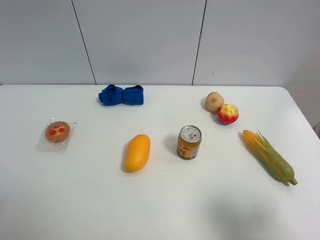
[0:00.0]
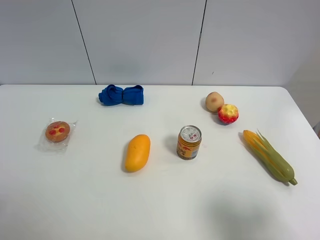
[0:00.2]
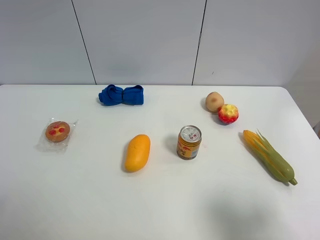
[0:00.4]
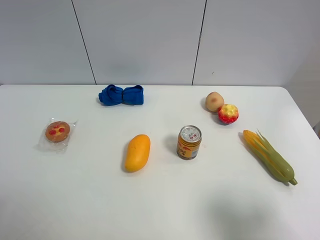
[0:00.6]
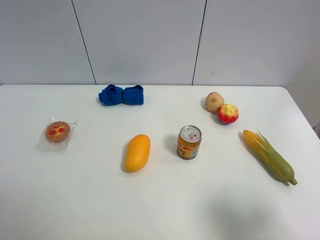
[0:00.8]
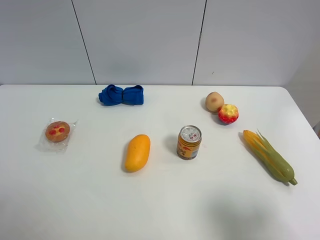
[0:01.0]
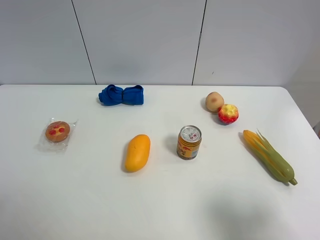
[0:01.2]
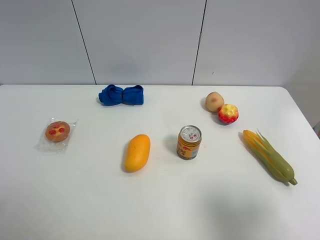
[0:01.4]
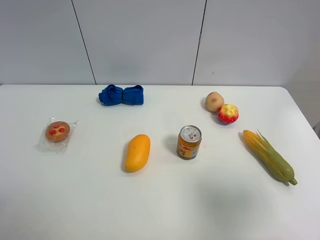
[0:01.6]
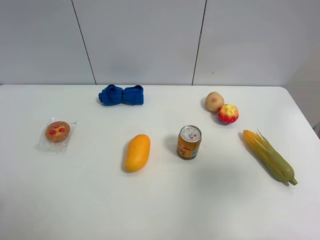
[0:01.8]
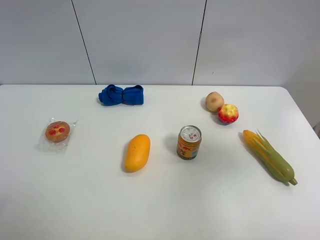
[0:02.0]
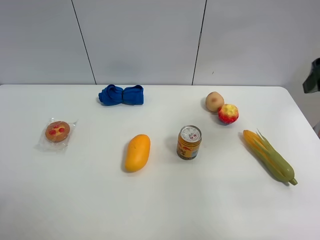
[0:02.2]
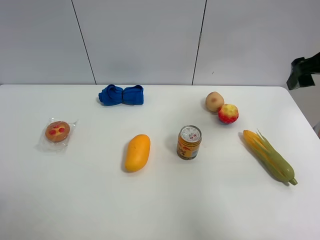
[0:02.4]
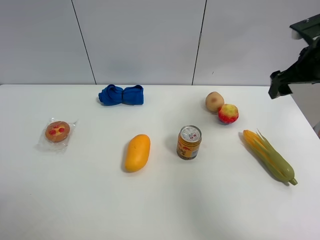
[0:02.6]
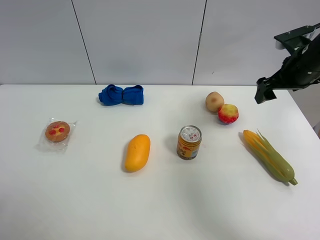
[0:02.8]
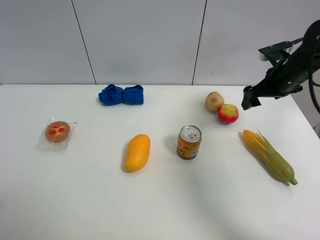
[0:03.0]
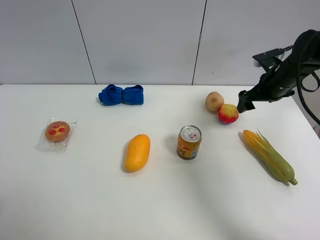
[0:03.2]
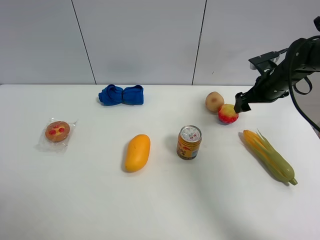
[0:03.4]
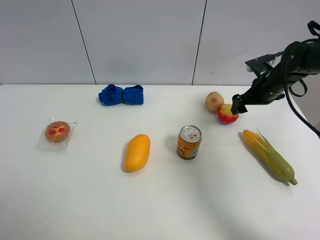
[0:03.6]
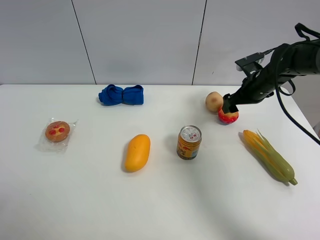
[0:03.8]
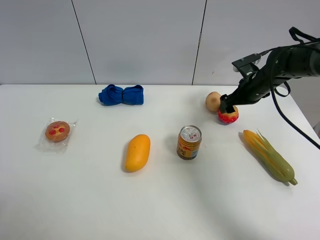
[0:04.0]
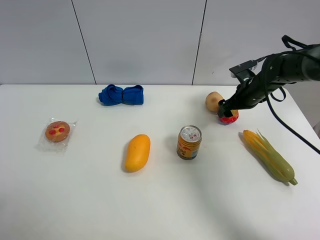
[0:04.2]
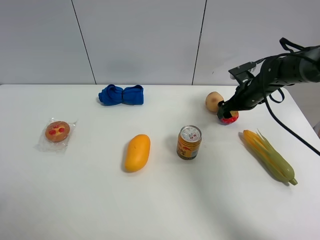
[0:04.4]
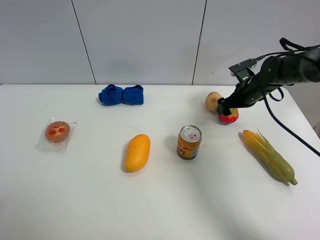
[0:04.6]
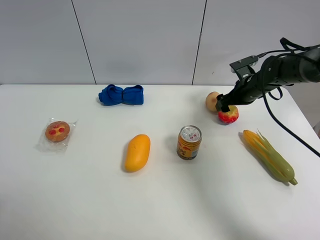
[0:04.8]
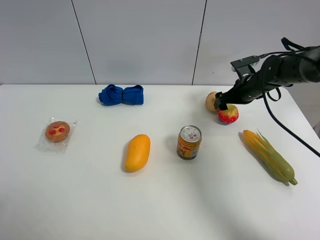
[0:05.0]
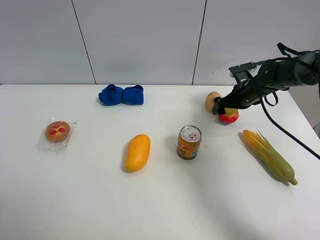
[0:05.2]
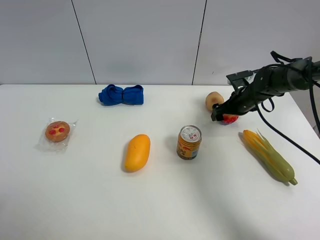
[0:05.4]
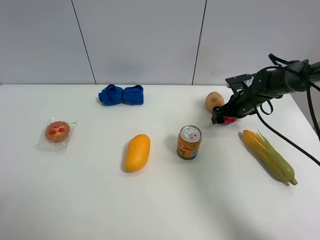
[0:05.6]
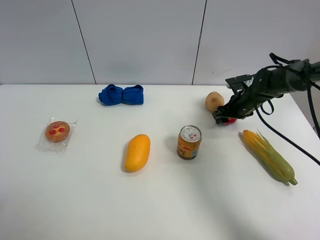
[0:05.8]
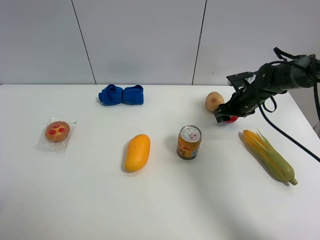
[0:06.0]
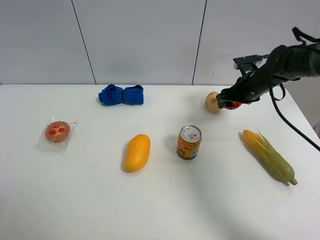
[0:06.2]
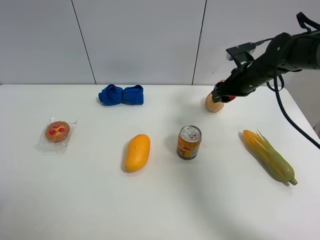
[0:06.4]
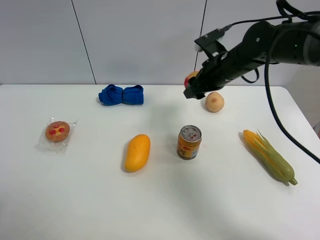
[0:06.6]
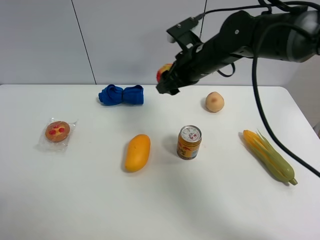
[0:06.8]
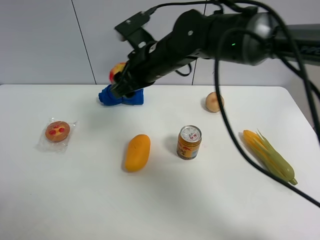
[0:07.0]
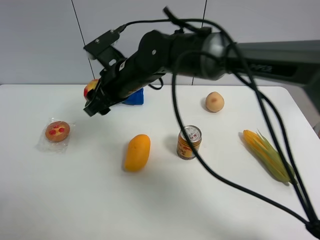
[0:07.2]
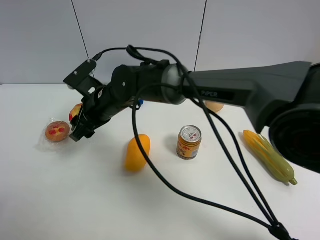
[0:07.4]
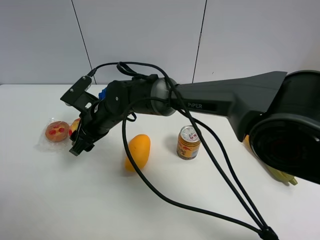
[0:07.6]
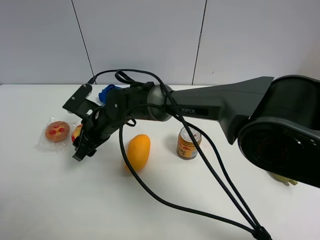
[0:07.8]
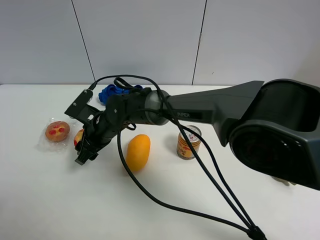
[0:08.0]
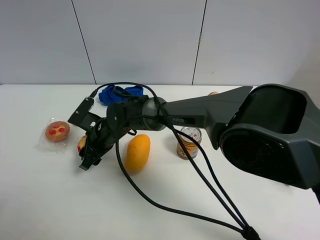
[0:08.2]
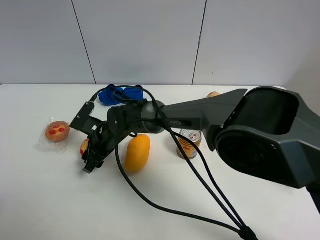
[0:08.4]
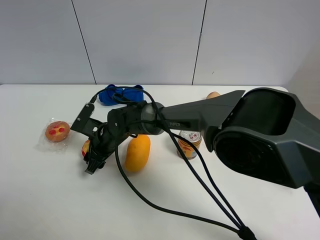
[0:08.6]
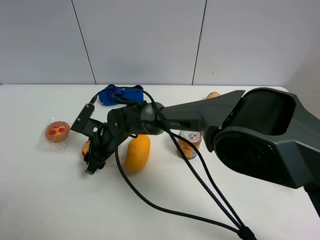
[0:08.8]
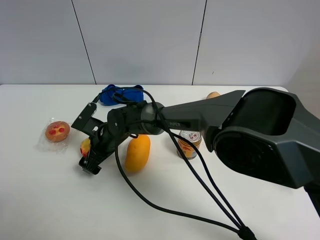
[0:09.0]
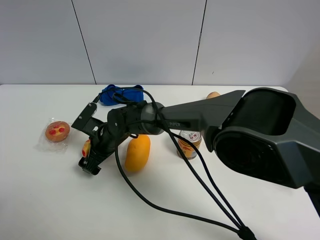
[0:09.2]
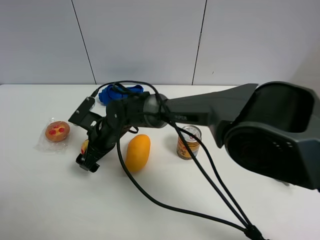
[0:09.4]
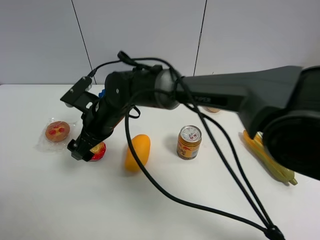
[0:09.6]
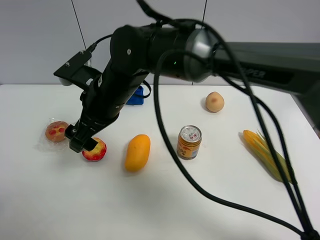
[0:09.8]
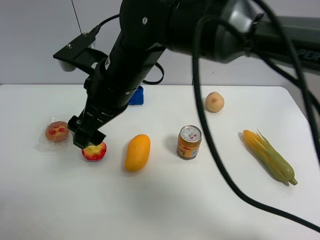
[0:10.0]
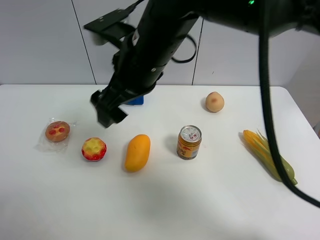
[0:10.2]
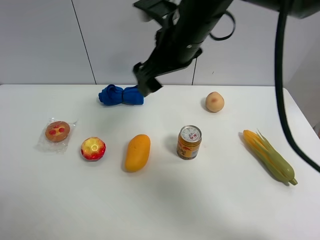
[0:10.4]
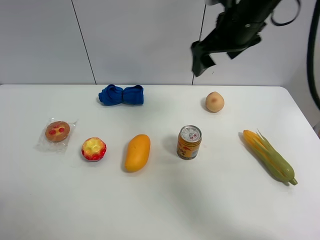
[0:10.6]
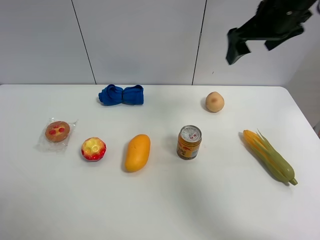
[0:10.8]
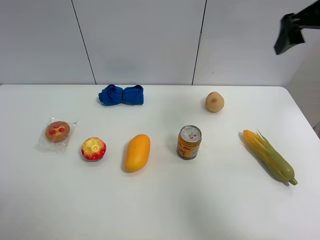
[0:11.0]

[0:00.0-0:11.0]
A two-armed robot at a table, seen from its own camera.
Task of the whole recording: the gripper move the object.
Step, 0:00.0 to 0:05.6: Grasp the colorful ball with the right gripper.
Step, 0:05.8 to 0:09.4: Place the colorful ball on the table with the right gripper.
0:00.0 to 0:01.6: The right gripper shifts about 5 cm upward.
0:01.6 to 0:03.2: The right gripper heads forward and downward, covering roughly 40 cm.
0:03.2 to 0:04.8: The right gripper travels downward by some 5 cm.
0:04.8 to 0:06.2: The right gripper closes.
0:06.2 to 0:07.8: The right gripper heads to the left, covering some 35 cm.
0:07.8 to 0:09.4: The right gripper opens up.
0:09.4 to 0:11.0: The right gripper heads to the right and upward, covering some 50 cm.

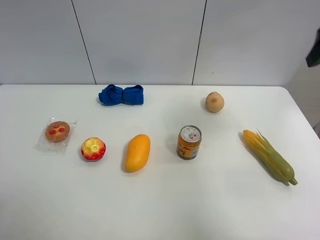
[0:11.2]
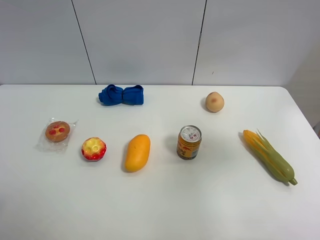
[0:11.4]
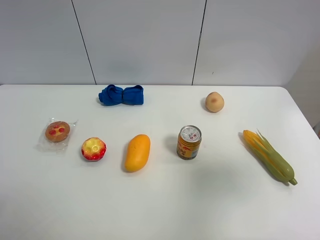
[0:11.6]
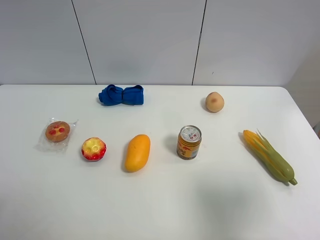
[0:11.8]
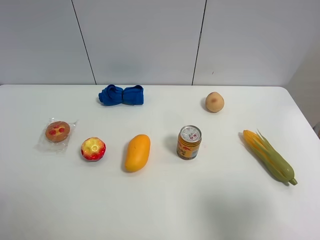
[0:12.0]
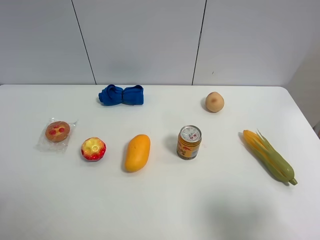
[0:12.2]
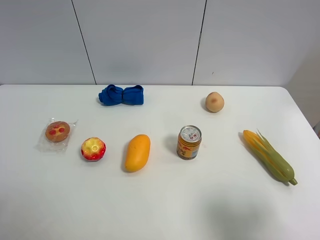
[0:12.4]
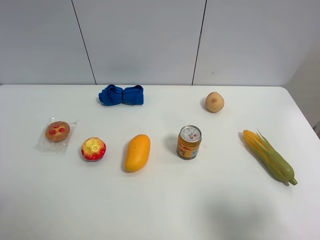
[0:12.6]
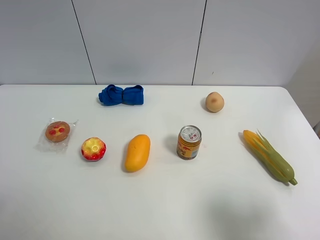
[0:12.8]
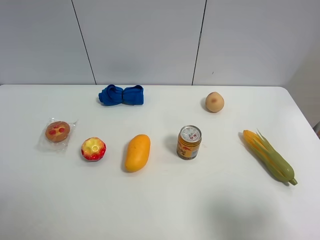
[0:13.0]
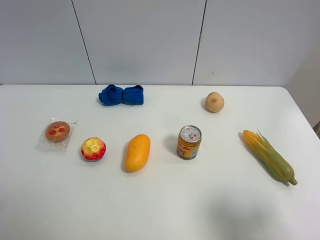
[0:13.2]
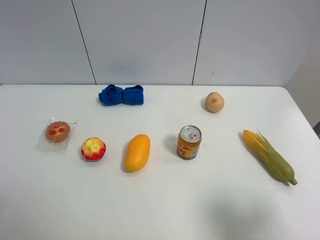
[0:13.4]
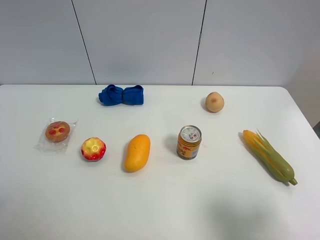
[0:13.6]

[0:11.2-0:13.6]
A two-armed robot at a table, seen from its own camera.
Task of the whole recording: the gripper move the object.
0:11.2 to 0:12.4: The right gripper heads backward and downward, covering roughly 25 cm.
0:12.4 to 0:13.6: The two grippers keep their place.

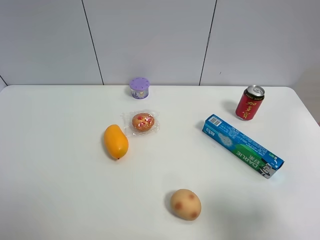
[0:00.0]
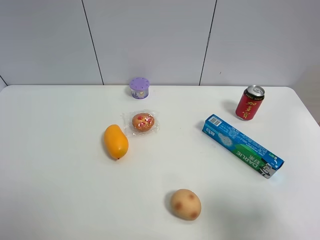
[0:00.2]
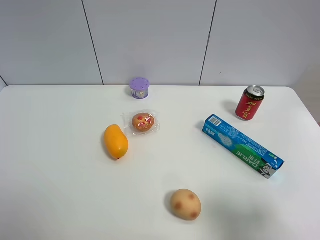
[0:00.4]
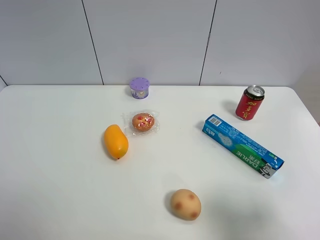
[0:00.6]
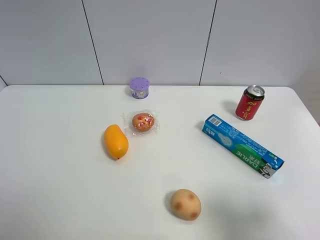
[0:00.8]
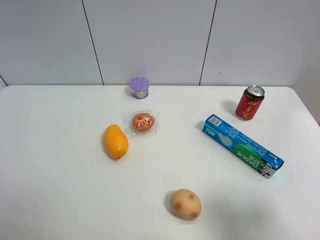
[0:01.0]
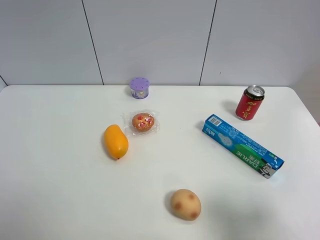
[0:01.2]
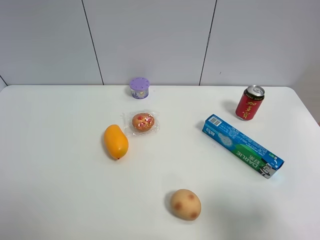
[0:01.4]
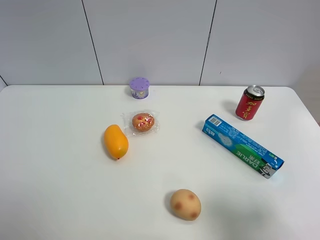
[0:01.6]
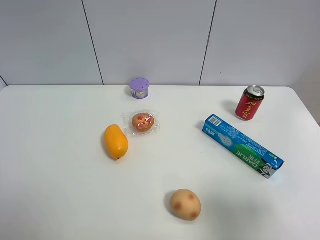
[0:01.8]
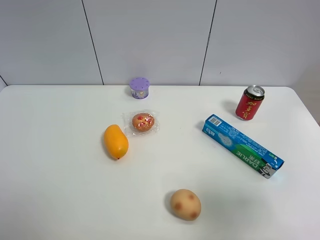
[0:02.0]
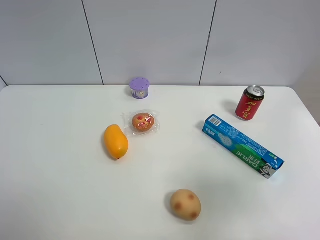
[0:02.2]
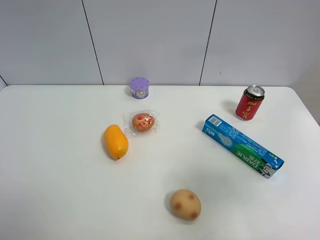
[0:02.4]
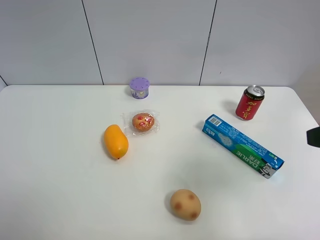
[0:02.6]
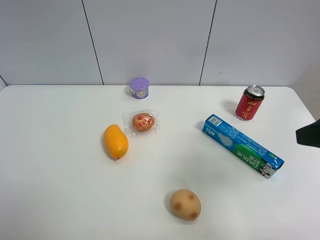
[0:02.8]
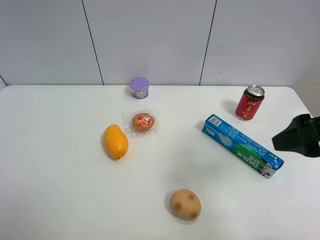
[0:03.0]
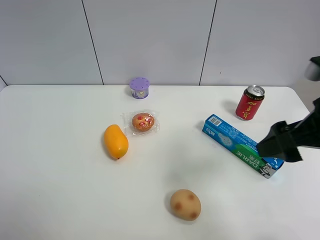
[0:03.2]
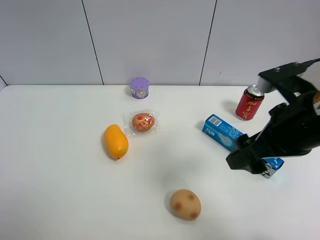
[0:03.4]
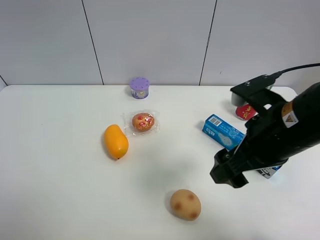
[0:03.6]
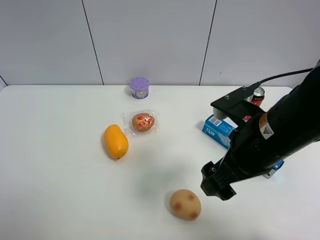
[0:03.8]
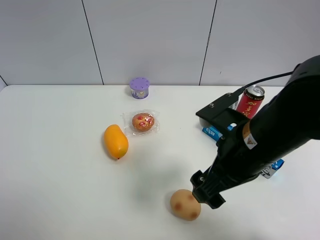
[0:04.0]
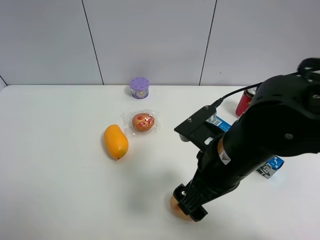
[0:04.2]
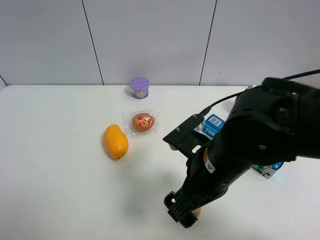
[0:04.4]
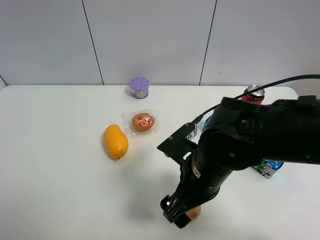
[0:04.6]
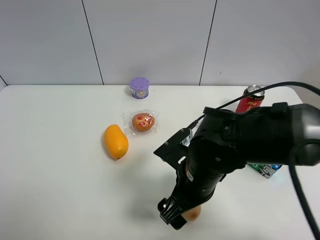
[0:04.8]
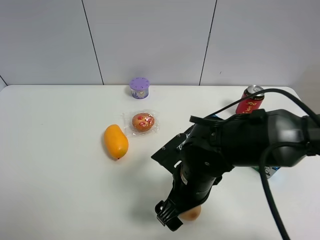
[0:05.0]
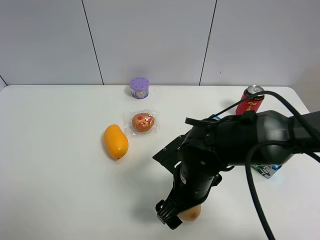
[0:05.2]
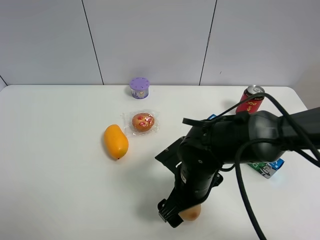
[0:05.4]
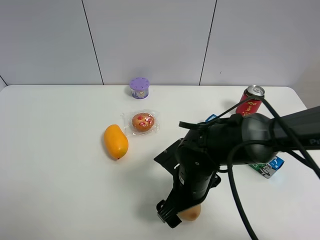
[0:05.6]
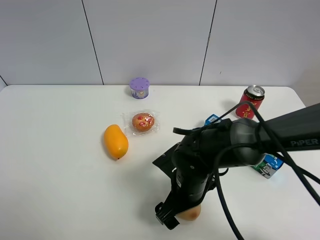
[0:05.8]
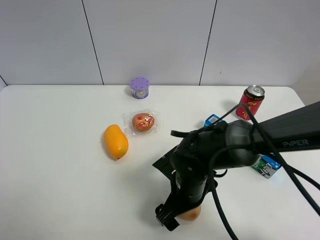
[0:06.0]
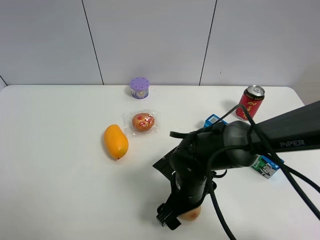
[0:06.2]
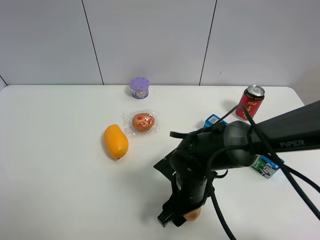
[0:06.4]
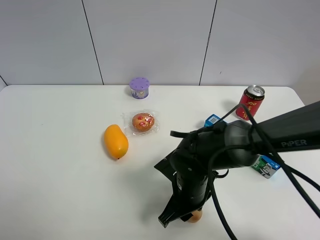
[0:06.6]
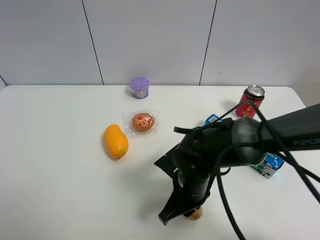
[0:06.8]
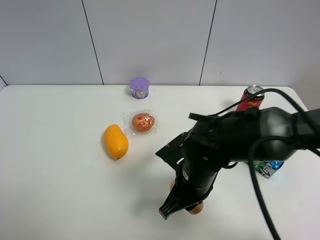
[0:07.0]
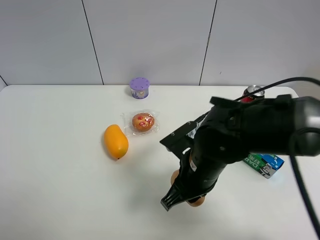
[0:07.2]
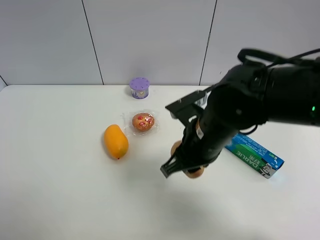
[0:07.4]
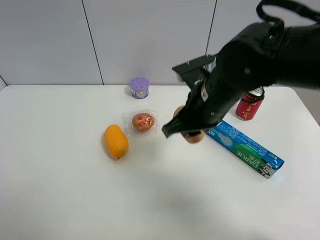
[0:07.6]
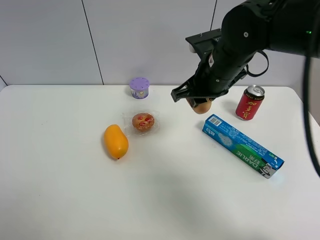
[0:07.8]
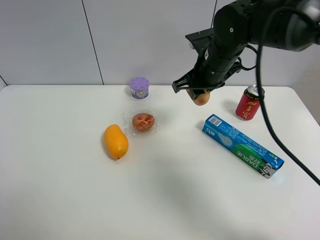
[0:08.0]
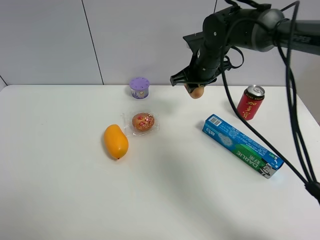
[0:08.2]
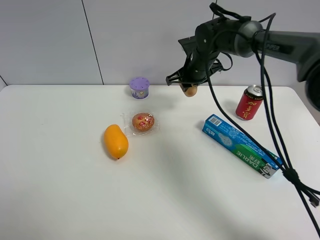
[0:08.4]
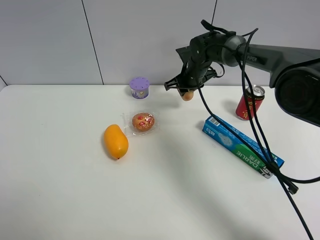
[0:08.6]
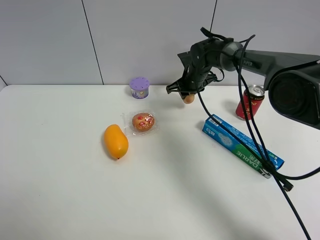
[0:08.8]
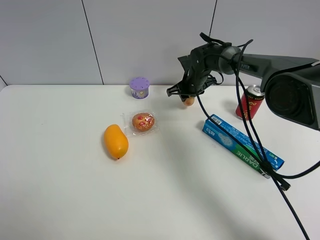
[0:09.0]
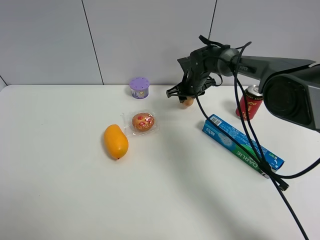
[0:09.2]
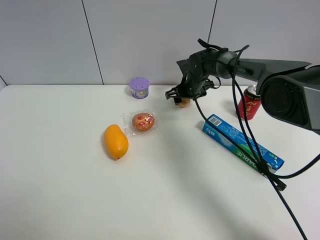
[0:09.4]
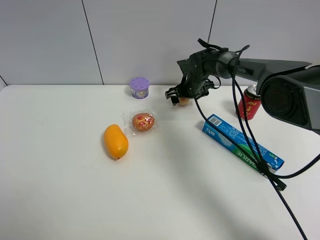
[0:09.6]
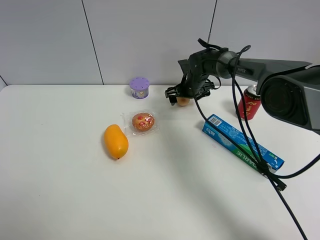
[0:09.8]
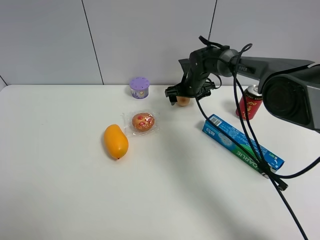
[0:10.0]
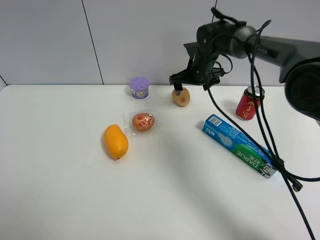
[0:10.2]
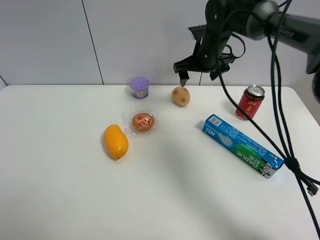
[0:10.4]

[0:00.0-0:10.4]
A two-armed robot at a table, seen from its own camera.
Task of the whole recording: the gripper move the object.
Step, 0:00.0 to 0:06.4: Grasp the egg yolk pastry with the right gripper.
Step, 0:06.6 to 0:09.4: Place the egg yolk pastry on the table with the right gripper.
0:00.0 to 0:01.4: Both grippers stay put.
0:01.4 to 0:03.0: The right gripper goes roughly 15 cm forward and upward.
0:03.0 to 0:04.4: The right gripper heads to the left and downward, covering approximately 20 cm.
0:04.4 to 0:06.0: The right gripper heads downward, covering some 10 cm.
0:06.0 to 0:07.4: The right gripper moves upward, approximately 10 cm, and closes up.
0:07.4 to 0:09.0: The right gripper shifts about 30 cm forward.
0:09.0 to 0:10.4: The right gripper moves upward, approximately 10 cm, and opens up.
